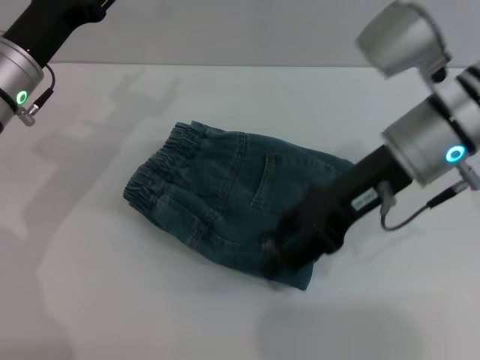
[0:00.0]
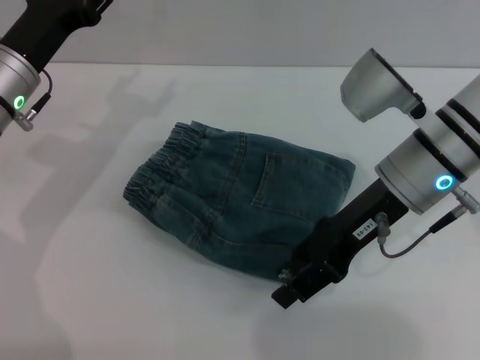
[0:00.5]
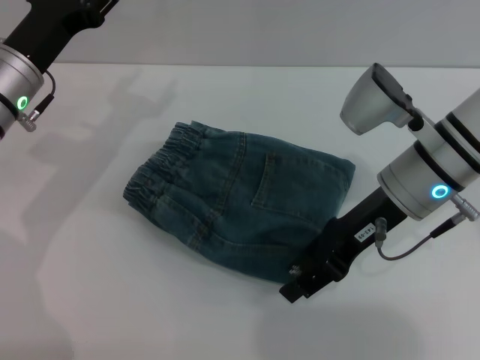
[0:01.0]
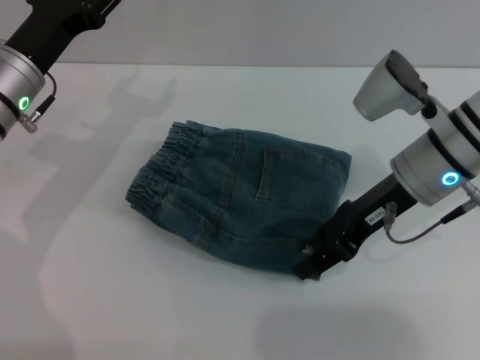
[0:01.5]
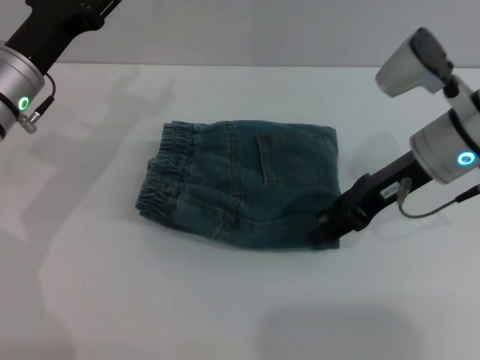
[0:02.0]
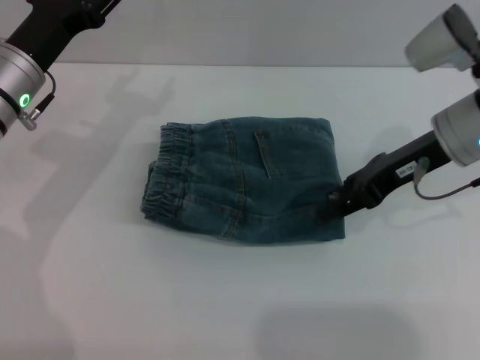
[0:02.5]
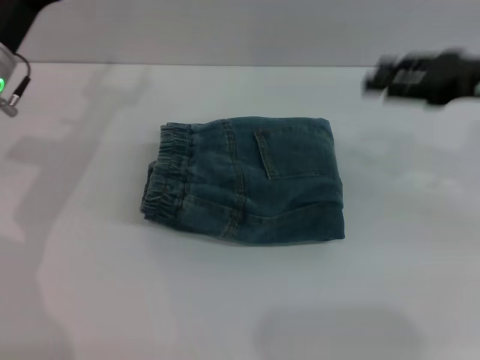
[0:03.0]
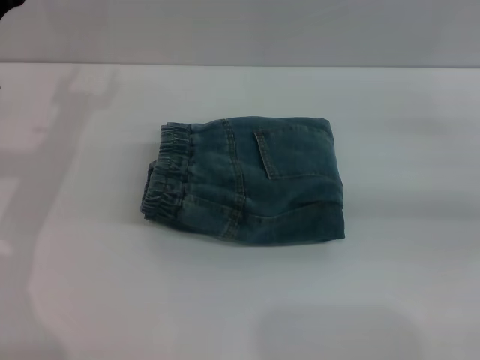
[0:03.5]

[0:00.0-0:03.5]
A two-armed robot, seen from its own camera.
Step, 0:00.0 to 0:02.5: Place the folded trousers onto the center area with the right grippers.
0:00.0 to 0:02.0: The right gripper shifts by roughly 5 cm.
0:02.0 to 0:03.5: The right gripper moves to the right, approximately 20 cm.

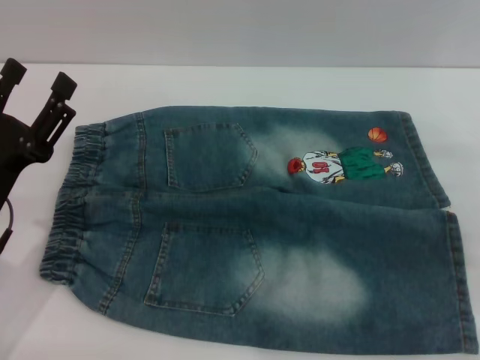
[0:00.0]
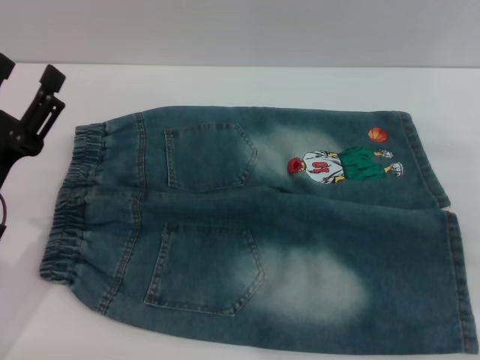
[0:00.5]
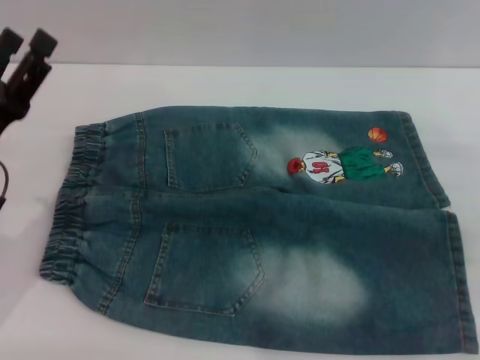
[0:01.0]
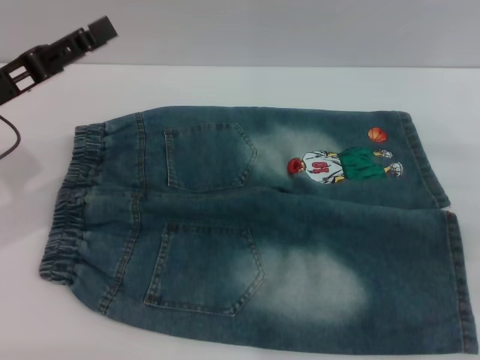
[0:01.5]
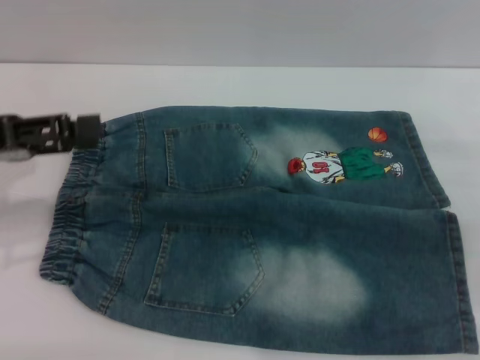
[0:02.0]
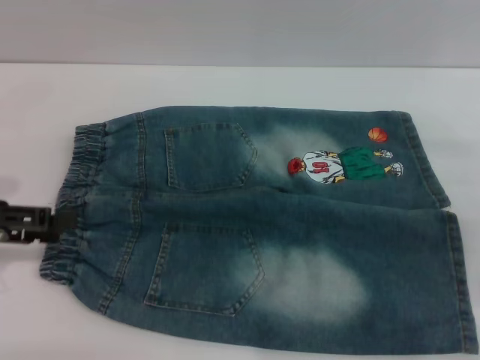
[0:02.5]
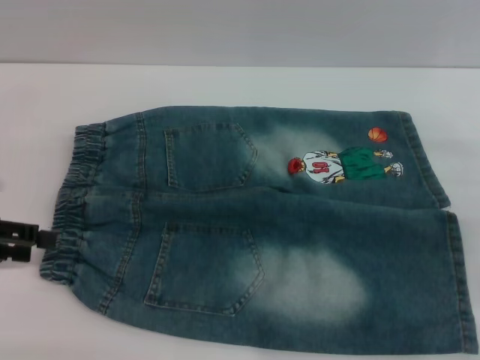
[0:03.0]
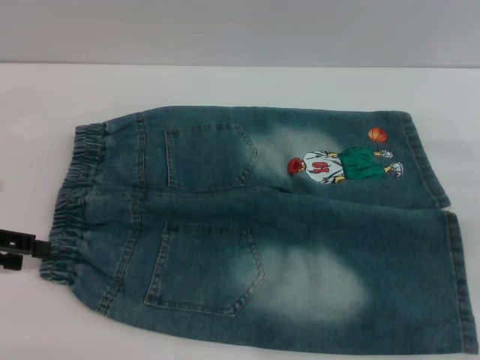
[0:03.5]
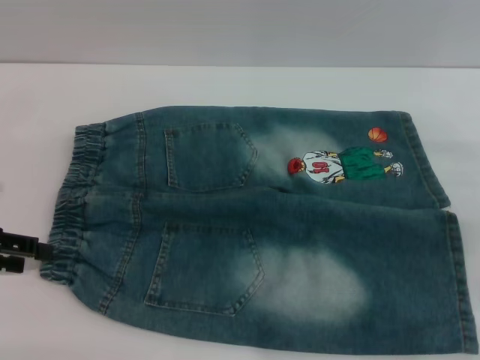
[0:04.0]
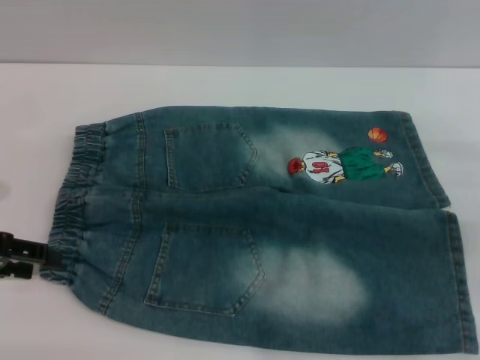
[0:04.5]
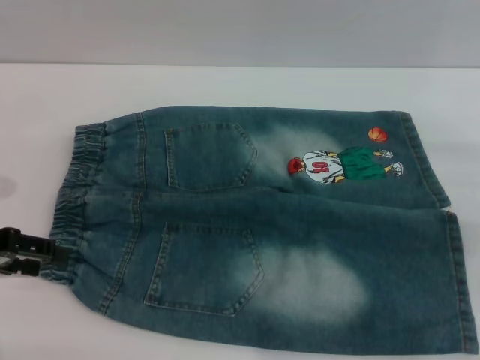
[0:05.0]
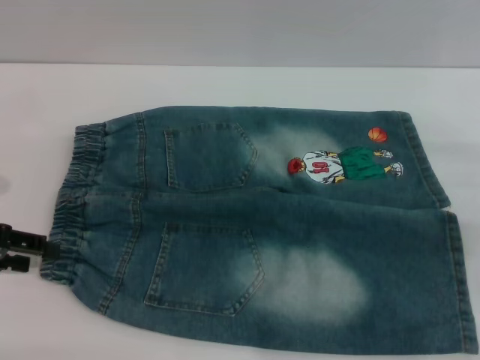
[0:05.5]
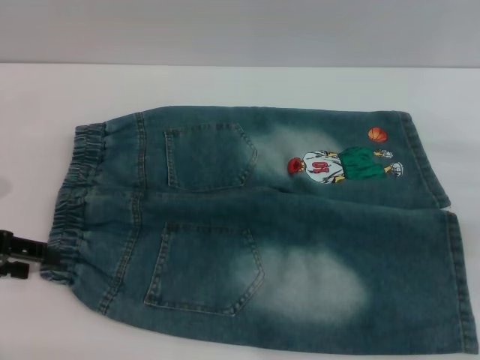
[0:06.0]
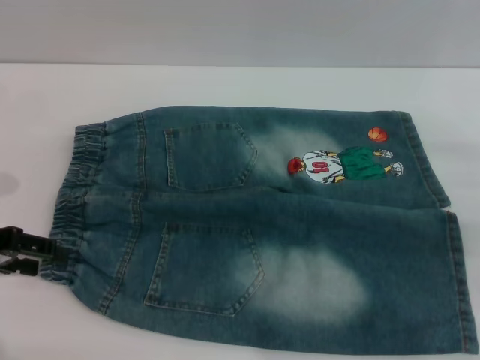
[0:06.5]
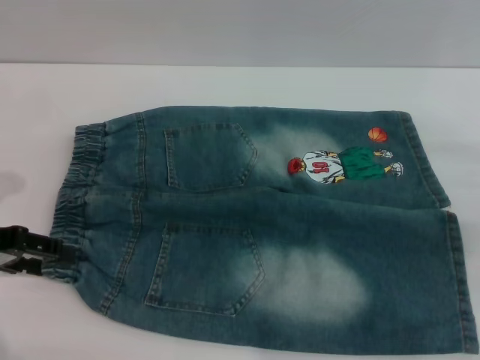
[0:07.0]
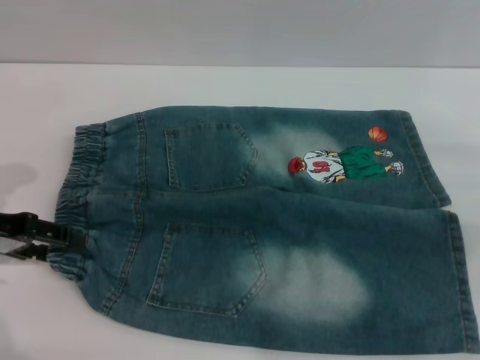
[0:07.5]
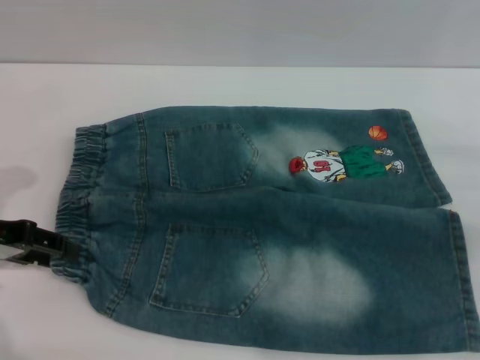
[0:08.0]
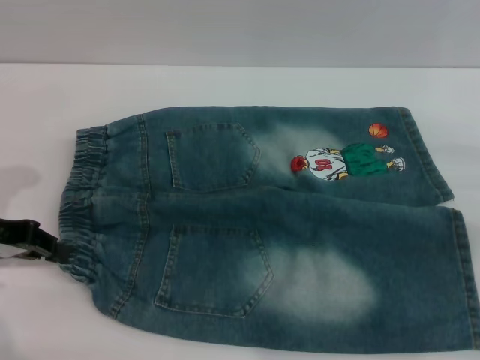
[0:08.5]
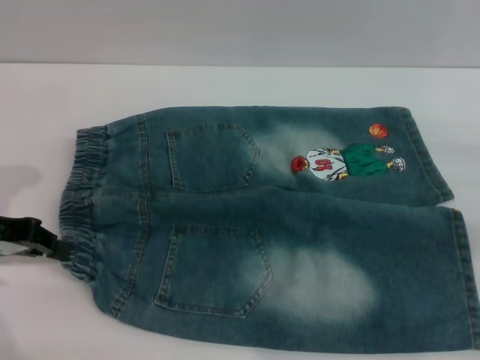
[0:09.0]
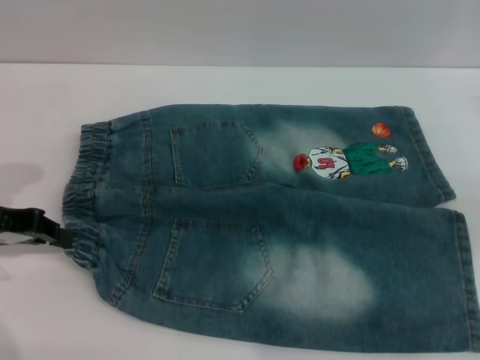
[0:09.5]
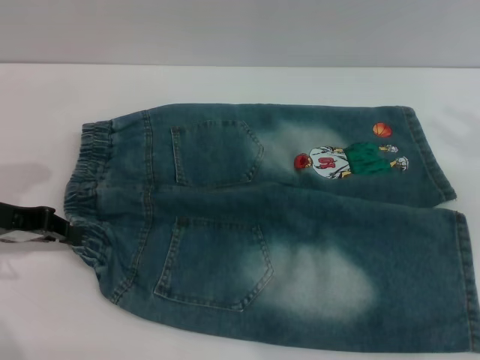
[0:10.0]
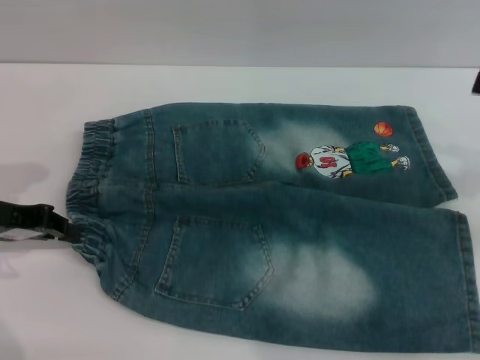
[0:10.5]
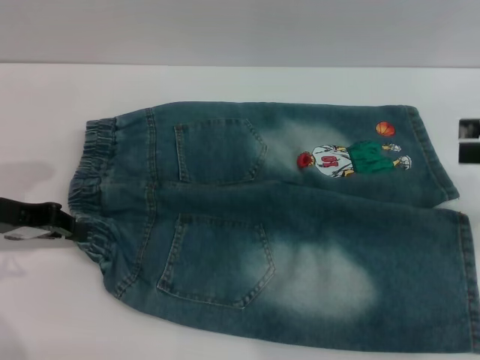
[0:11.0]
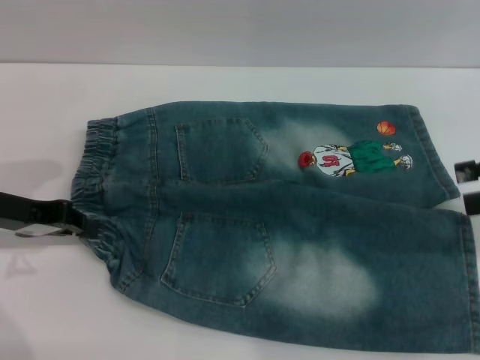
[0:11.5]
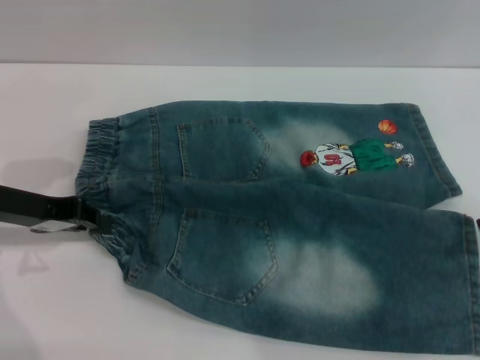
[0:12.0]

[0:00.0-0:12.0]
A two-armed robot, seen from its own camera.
0:00.0 to 0:02.0: The left gripper shifts some 15 cm upward, forward and to the left.
0:02.0 to 0:04.0: The left gripper is displaced downward by about 5 cm.
0:06.0 to 0:08.0: The grippers make only small movements.
0:08.0 to 0:10.0: The right gripper shifts about 5 cm upward. Meanwhile the left gripper closes up.

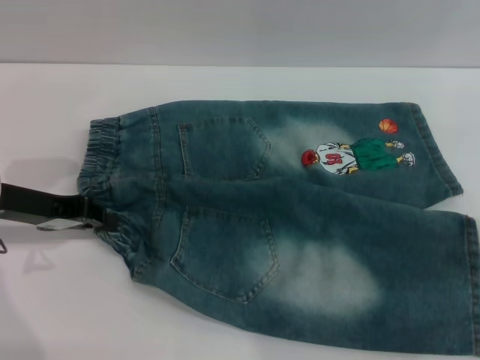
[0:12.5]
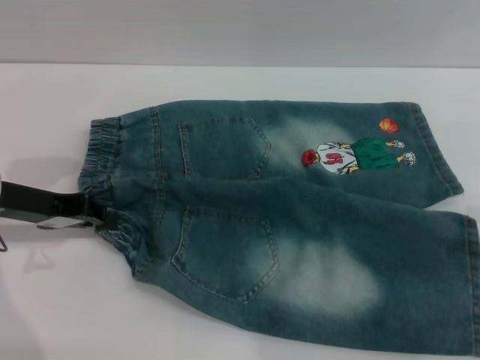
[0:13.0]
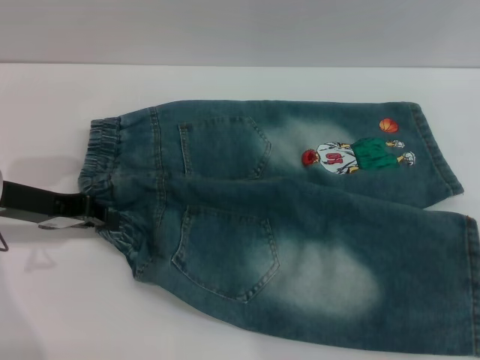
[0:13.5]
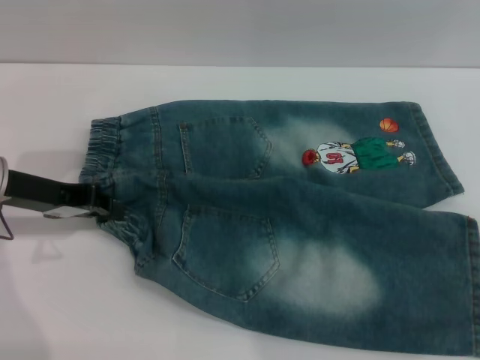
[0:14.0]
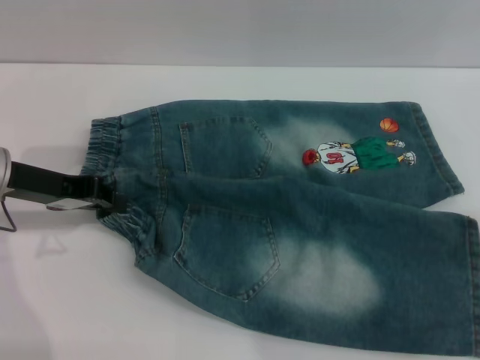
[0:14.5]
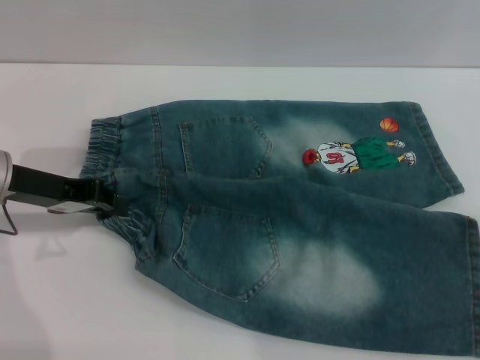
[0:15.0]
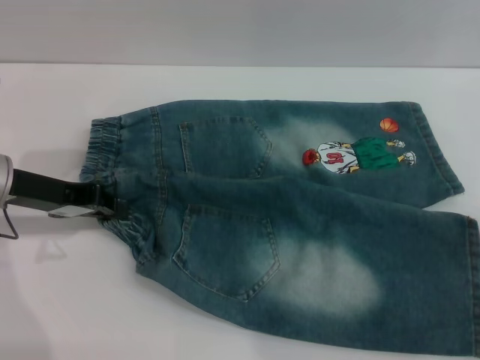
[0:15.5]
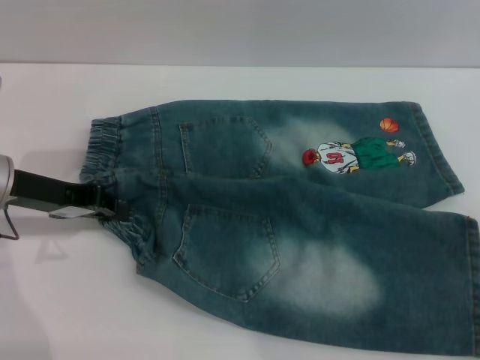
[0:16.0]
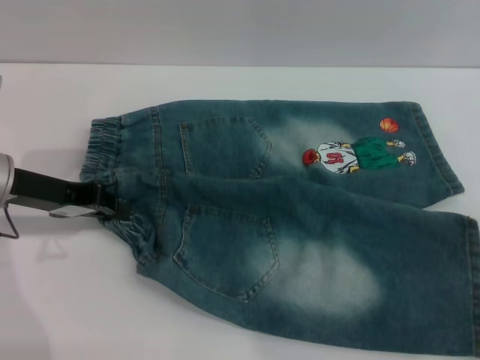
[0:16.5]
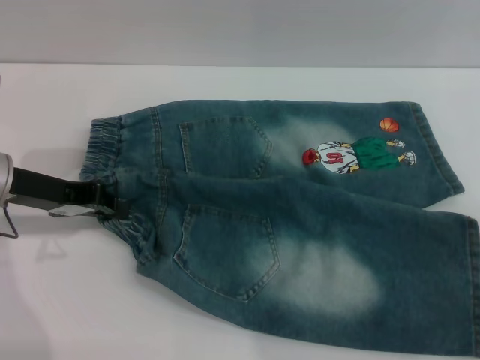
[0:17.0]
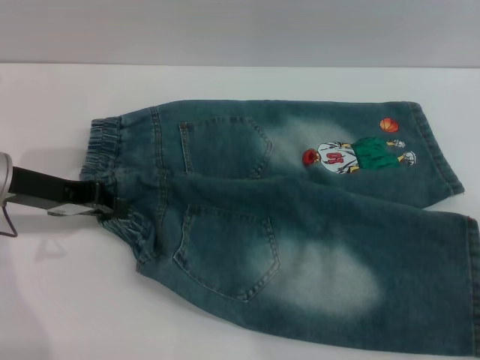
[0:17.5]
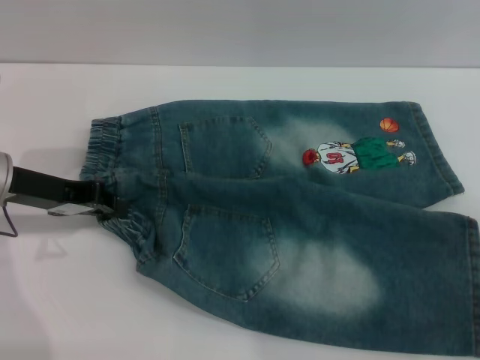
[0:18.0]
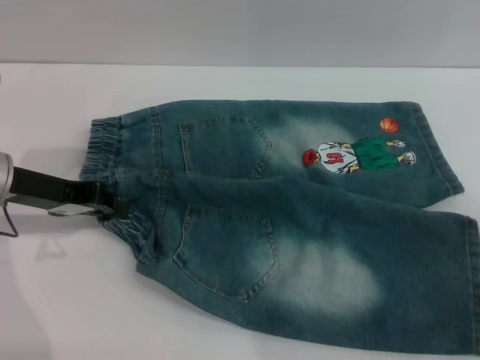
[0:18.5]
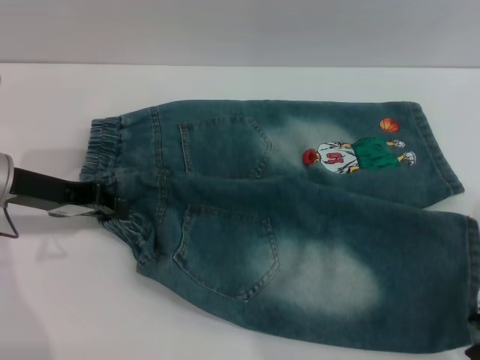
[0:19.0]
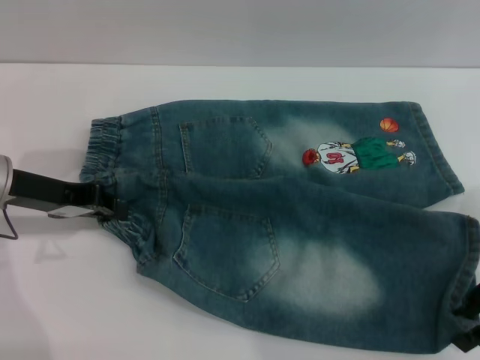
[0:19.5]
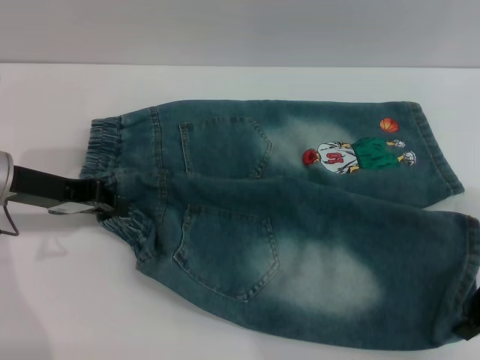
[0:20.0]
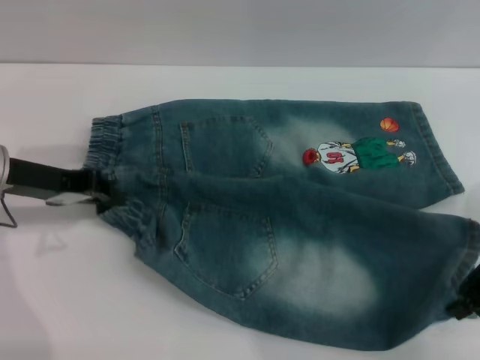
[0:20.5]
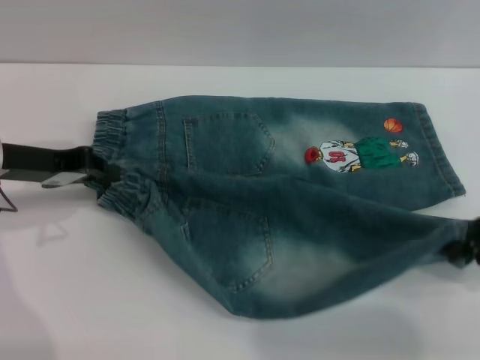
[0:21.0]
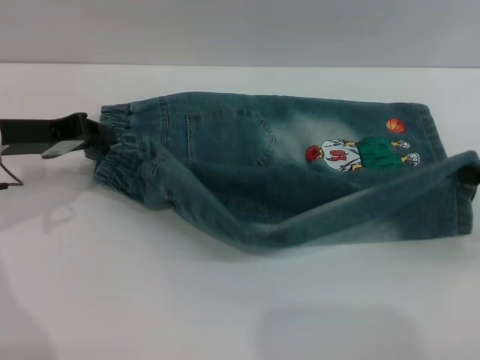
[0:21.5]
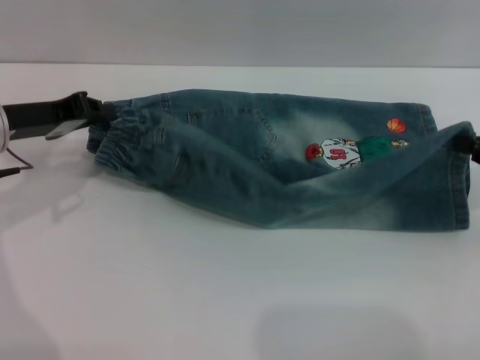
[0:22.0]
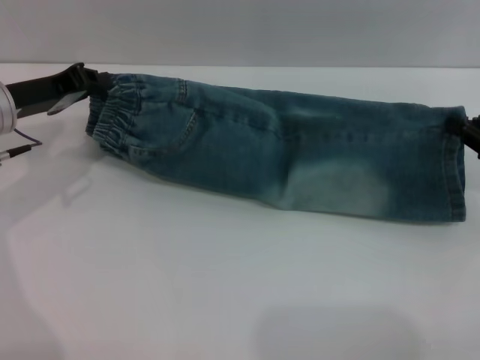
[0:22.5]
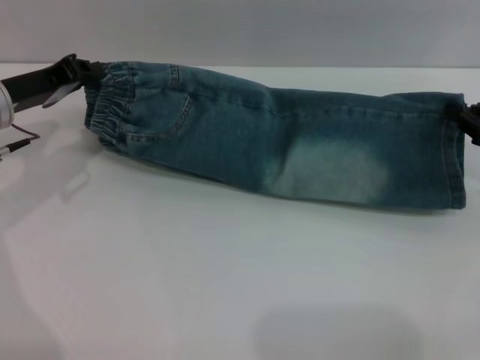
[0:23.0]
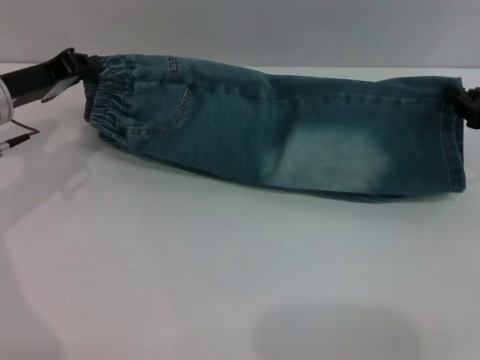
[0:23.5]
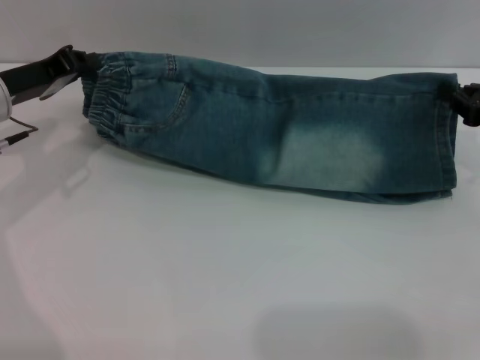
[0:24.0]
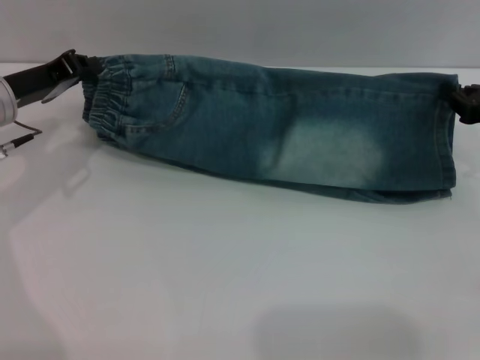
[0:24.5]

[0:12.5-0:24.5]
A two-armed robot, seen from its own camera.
0:14.5 to 0:16.5: The grippers stay close to where they were, moving slightly.
0:18.5 to 0:20.5: The right gripper closes.
0:20.5 to 0:22.5: The right gripper shifts by some 5 cm.
0:22.5 to 0:24.5: There are only small adjustments of the grippers.
